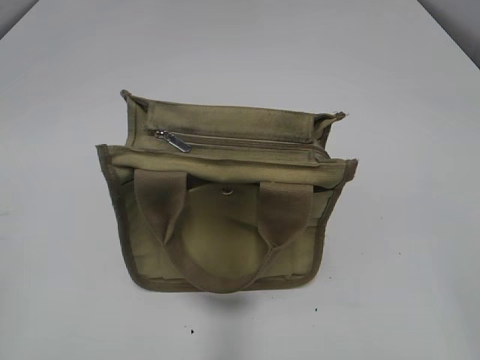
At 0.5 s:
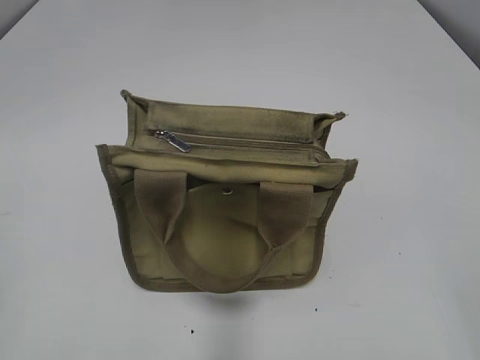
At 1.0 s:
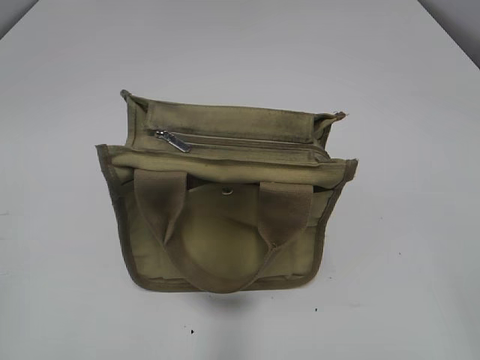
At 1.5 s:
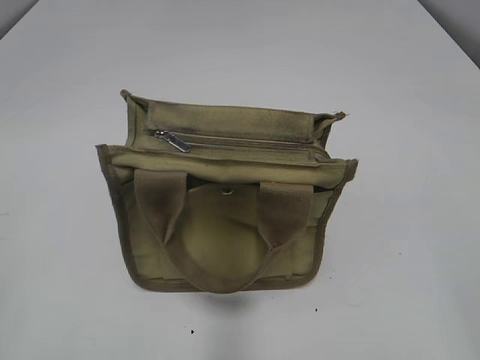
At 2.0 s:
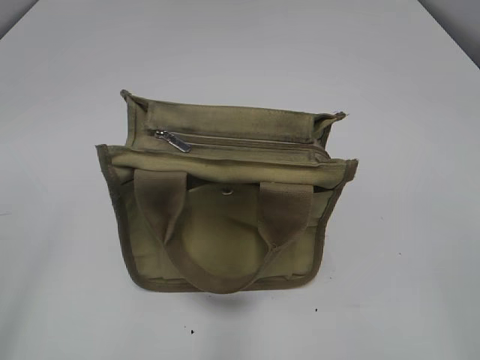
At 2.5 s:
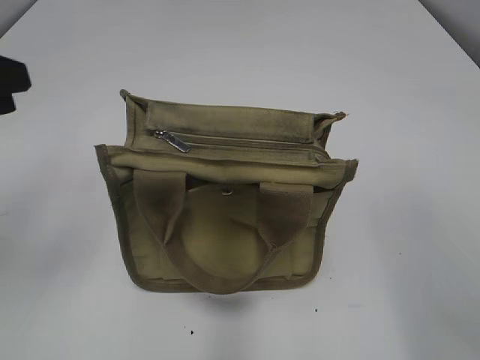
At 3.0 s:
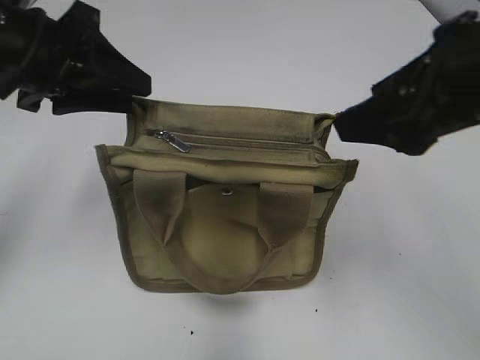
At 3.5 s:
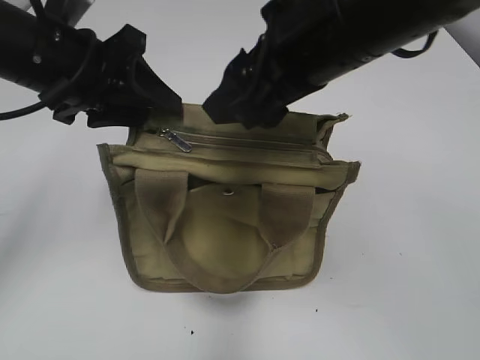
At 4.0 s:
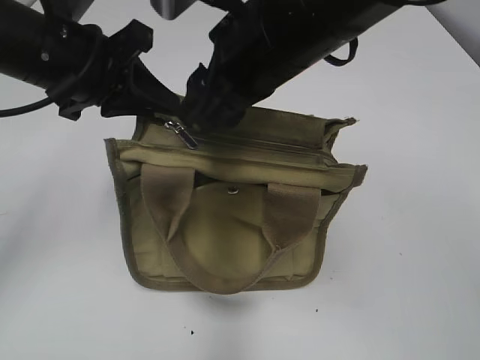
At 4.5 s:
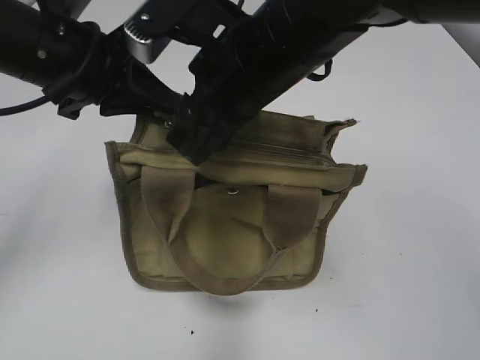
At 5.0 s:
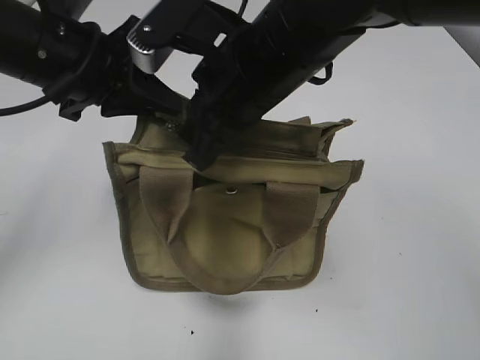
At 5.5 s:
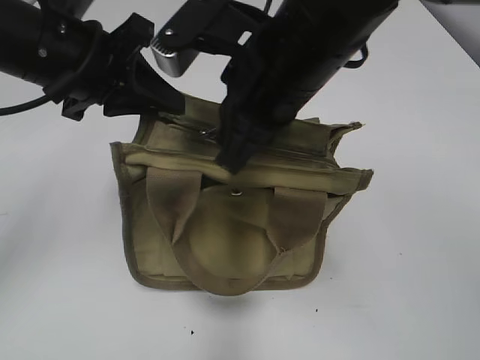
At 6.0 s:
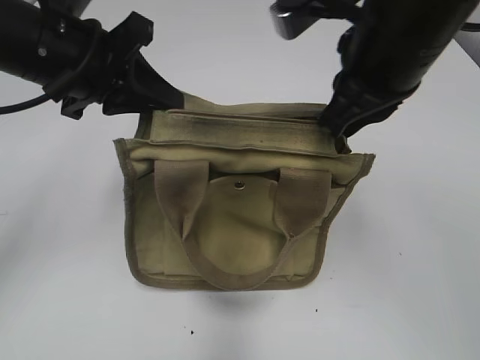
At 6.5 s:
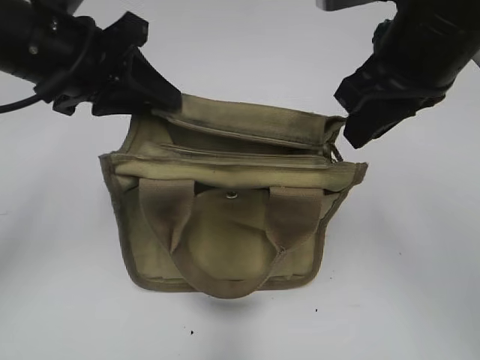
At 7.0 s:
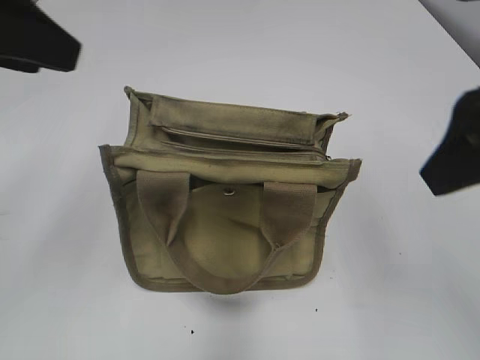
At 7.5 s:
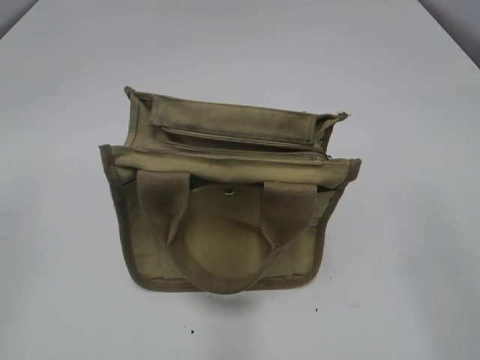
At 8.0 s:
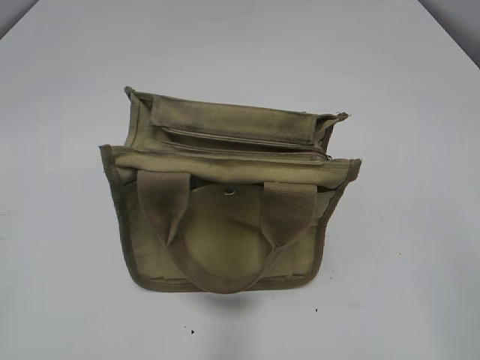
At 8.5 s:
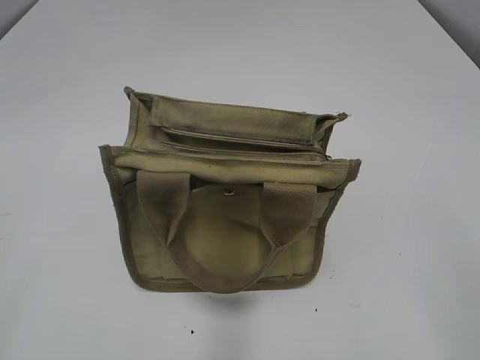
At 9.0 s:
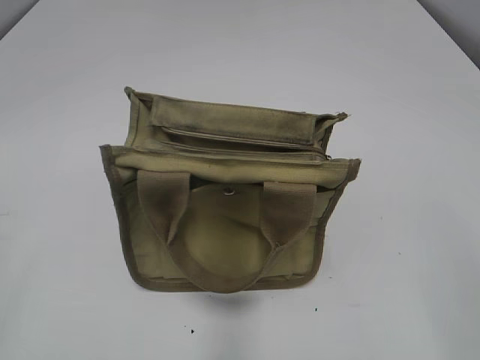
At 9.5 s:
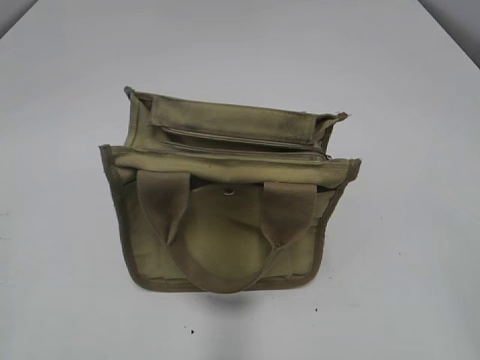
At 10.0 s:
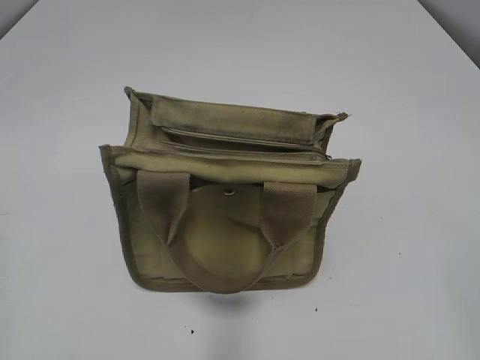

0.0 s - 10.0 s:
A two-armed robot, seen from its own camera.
Step, 0.0 s - 6.5 s: Pull open the zipper with your right hand.
2.0 s - 4.0 s: The left gripper heads forward and to the right, covering about 30 cm, and closes. Meanwhile the right gripper is displaced forward and to the left by roughly 35 cm.
4.0 s - 6.0 s: The right gripper travels to the right by about 10 cm, and closes.
6.0 s - 8.0 s: The right gripper is displaced backward and to the right by about 30 cm, and opens its fingers; the left gripper goes about 35 cm backward and to the left, and opens its fingers.

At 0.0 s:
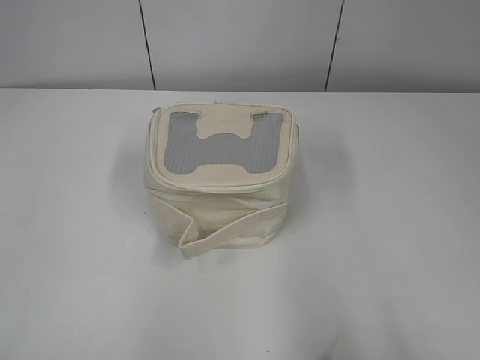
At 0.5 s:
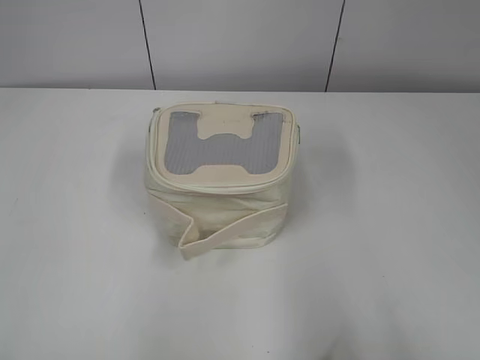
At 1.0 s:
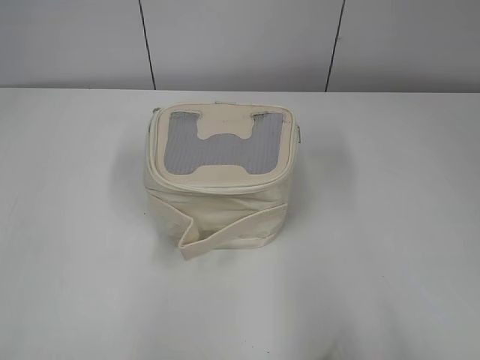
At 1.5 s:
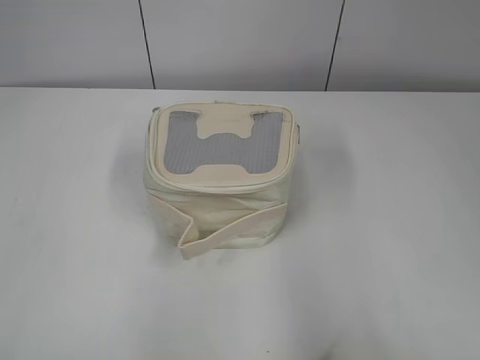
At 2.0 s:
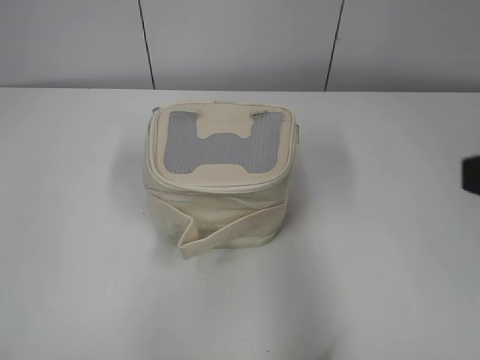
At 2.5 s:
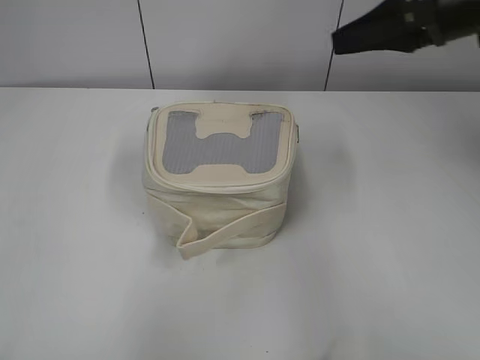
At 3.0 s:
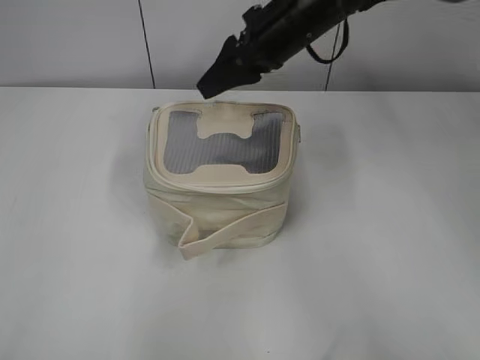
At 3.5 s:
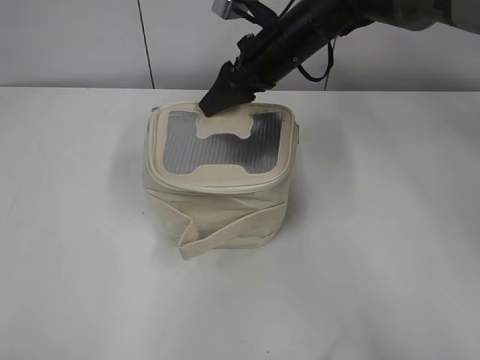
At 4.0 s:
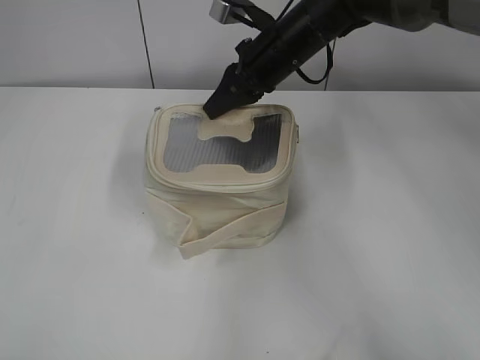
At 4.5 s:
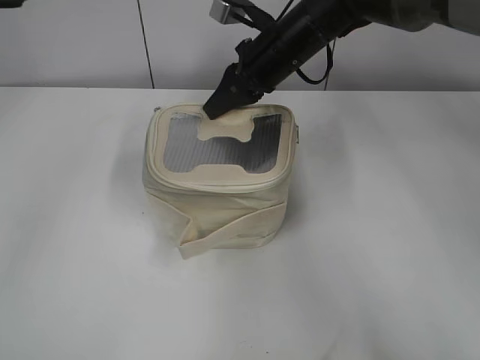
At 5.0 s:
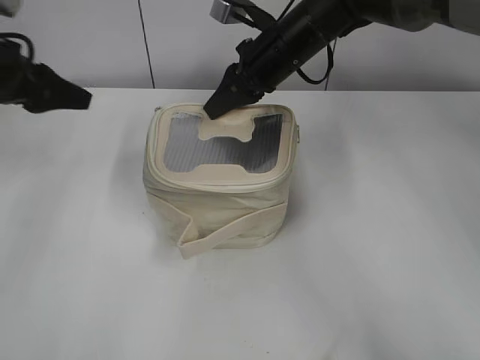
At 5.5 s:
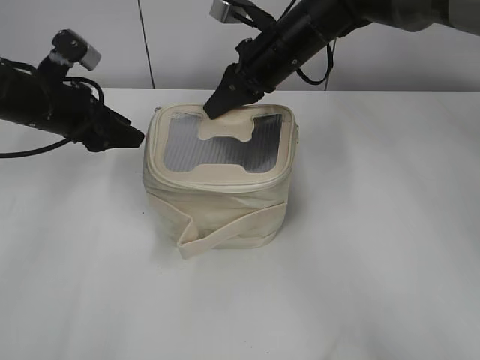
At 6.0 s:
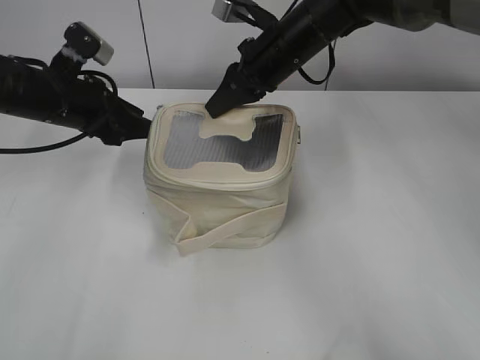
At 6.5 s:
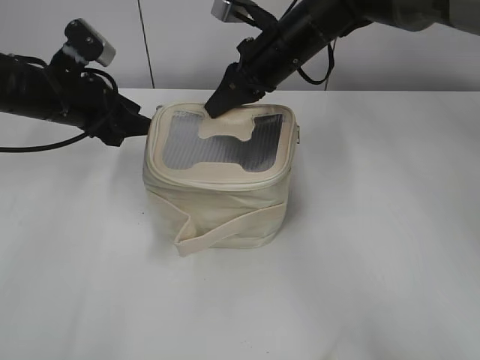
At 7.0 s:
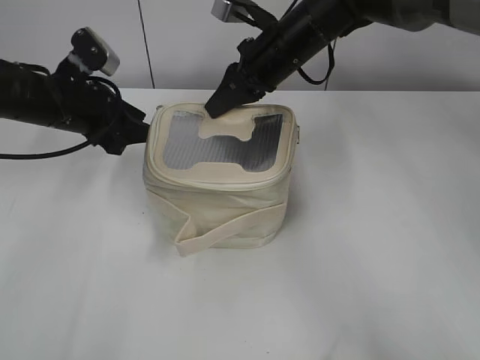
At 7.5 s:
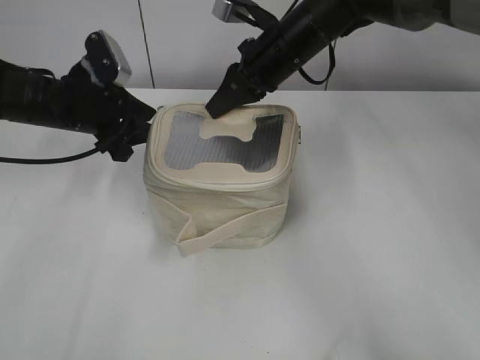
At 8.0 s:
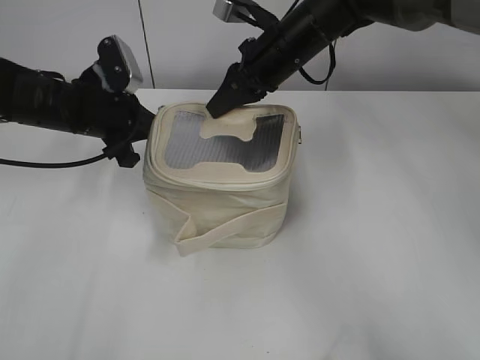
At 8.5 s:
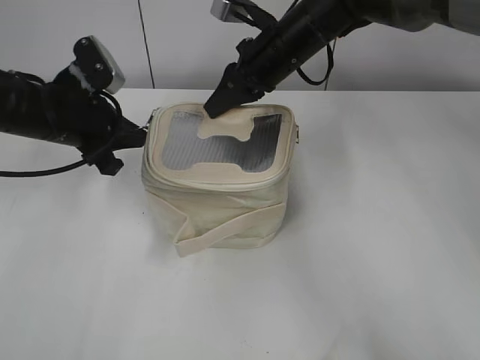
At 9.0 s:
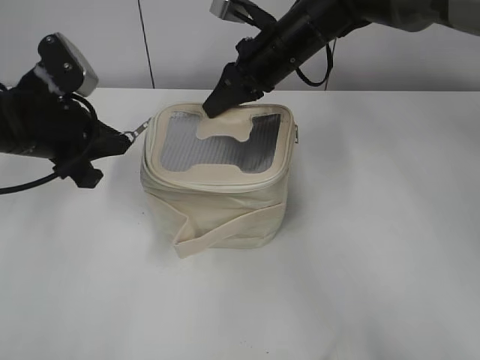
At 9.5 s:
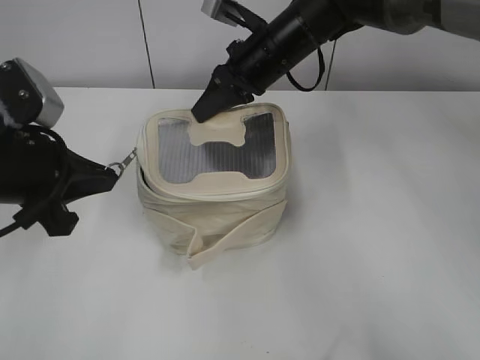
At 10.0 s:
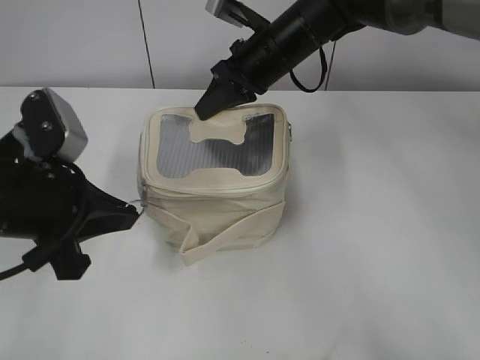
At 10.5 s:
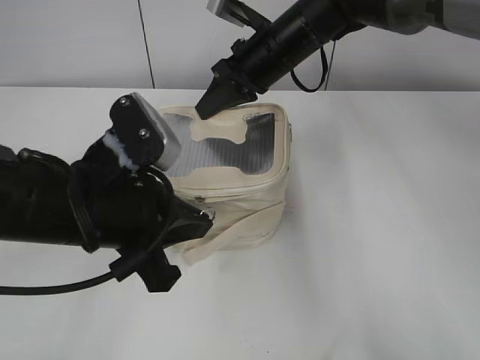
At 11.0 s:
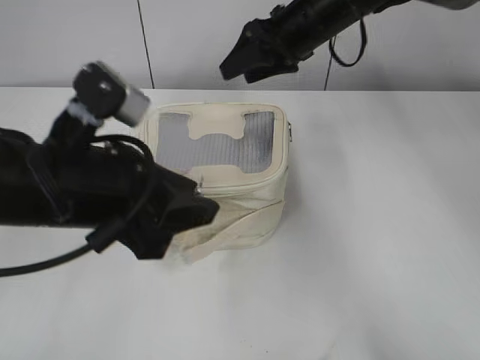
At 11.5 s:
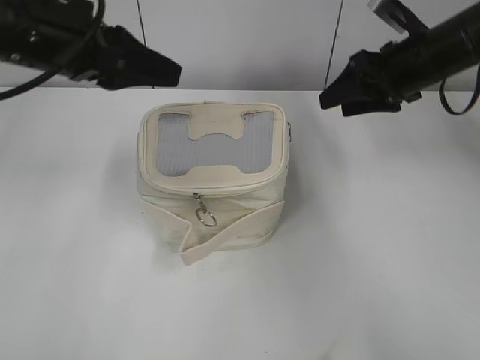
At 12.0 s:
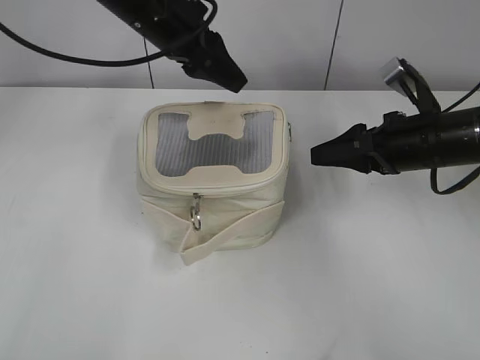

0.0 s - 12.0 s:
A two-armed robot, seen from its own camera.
Step, 0.0 s - 10.5 s: Zip up the bag with your left hand.
2.0 s - 4.0 s: The right gripper moves forward and to the left, approximately 40 cm, and closes, while the left gripper heads forward, to the right and upward, covering some 15 cm.
4.0 s - 6.0 s: The left gripper shifts about 30 cm forward and downward, and opens its fingers.
6.0 s - 8.0 s: The left gripper closes.
8.0 s - 10.0 s: The left gripper shifts roughly 15 cm backward.
10.0 s - 12.0 s: The right gripper heads to the right and backward, covering some 20 cm, and opens its fingers; the left gripper shifts approximately 25 cm forward, to the right and upward, and opens.

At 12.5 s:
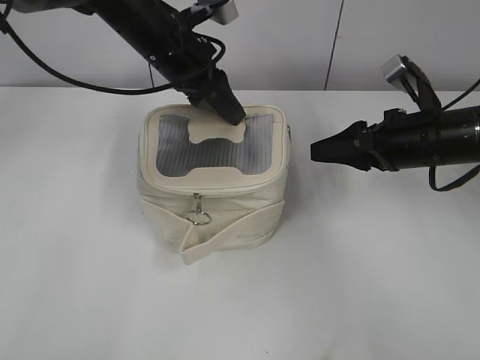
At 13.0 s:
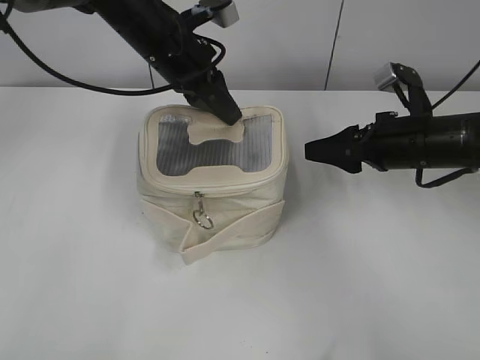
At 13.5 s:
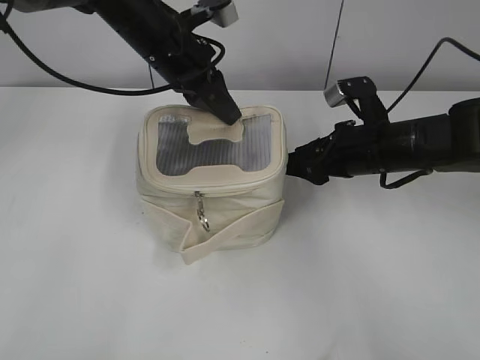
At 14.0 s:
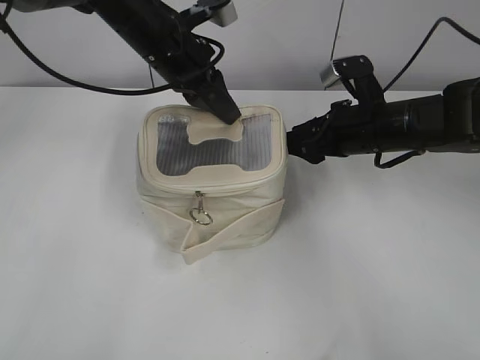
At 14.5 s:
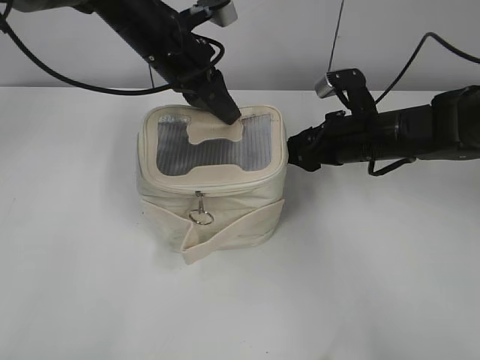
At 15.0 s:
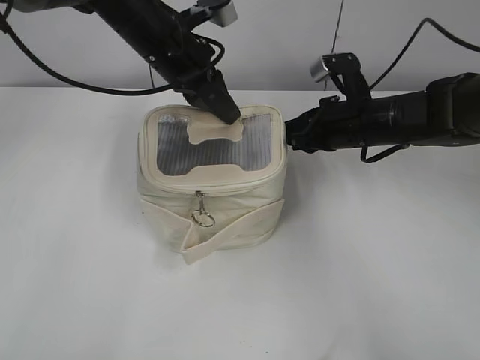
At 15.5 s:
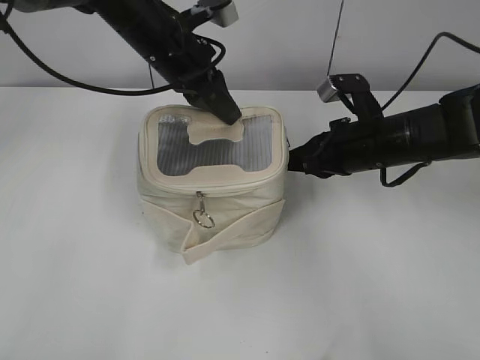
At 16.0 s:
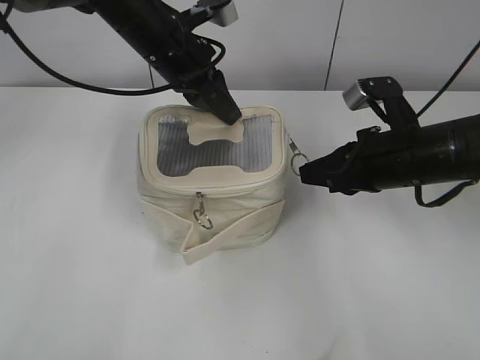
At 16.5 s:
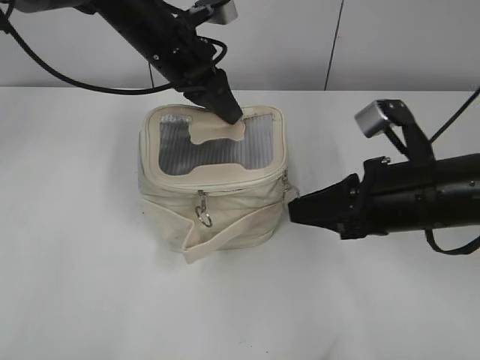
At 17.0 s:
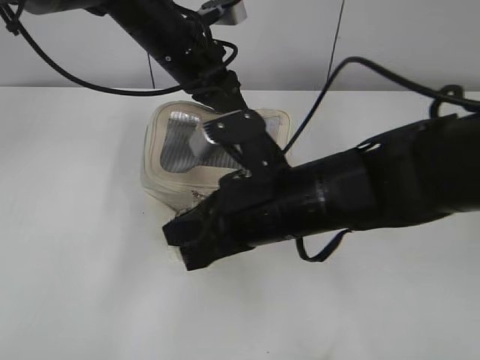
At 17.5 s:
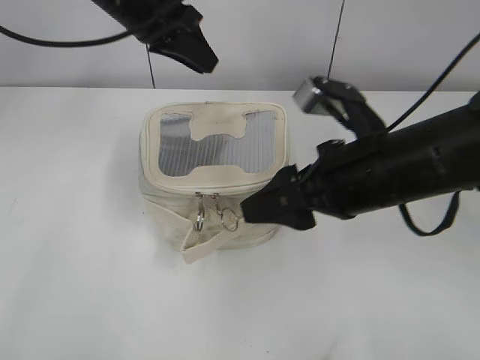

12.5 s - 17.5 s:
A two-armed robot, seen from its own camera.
Step, 12.5 s - 17.0 s: Zip up the bag with your right hand.
12.5 s - 15.0 s: The left gripper closes its fingers. The right gripper heads to the left and forward, covering about 10 cm, and closes up.
15.0 s - 17.5 s: The right gripper shifts some 15 cm backward and upward, and opens its fingers, while the left gripper goes some 5 cm upward.
